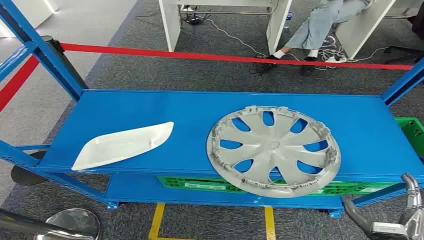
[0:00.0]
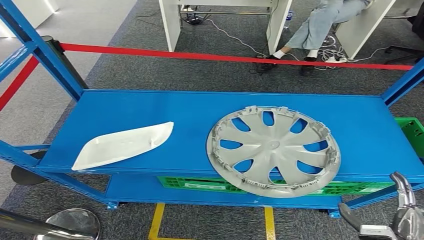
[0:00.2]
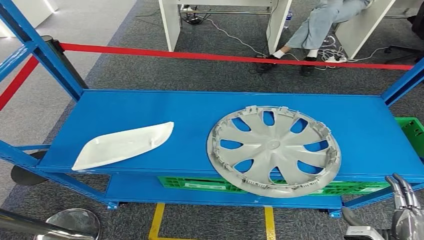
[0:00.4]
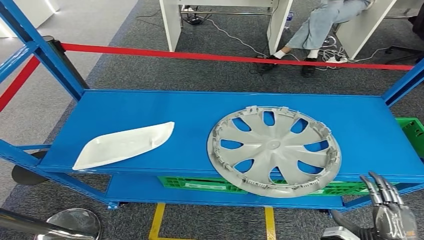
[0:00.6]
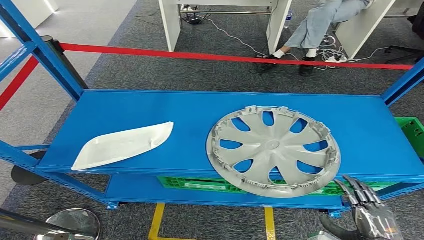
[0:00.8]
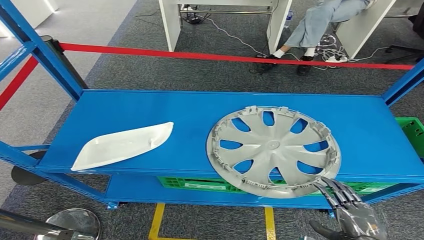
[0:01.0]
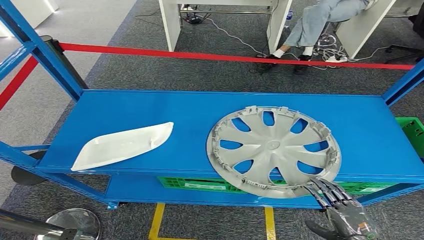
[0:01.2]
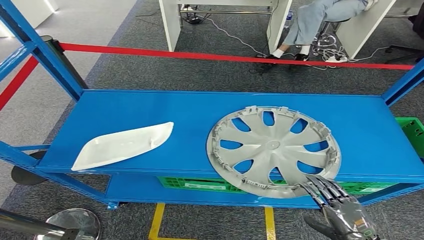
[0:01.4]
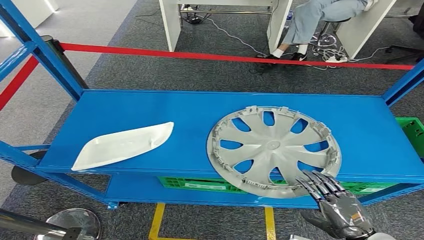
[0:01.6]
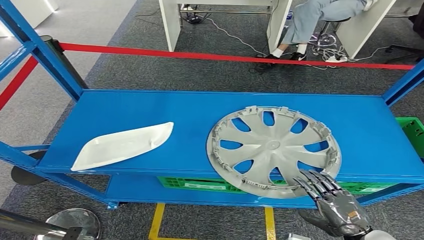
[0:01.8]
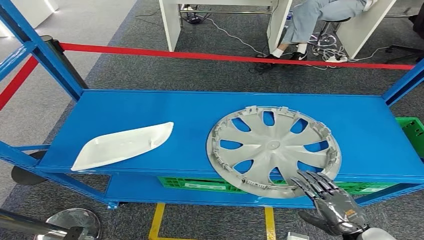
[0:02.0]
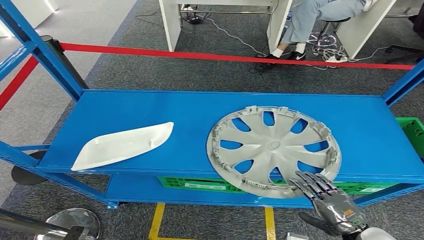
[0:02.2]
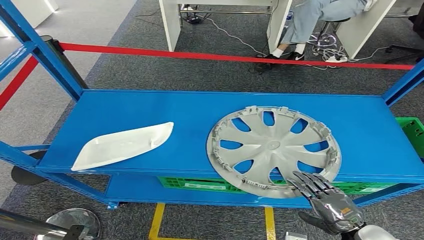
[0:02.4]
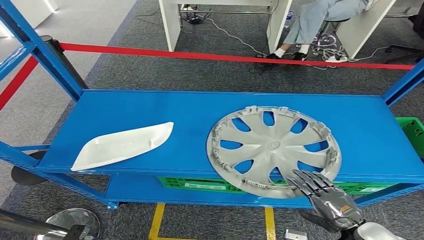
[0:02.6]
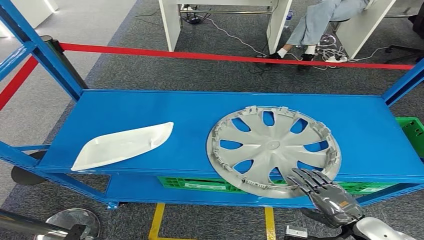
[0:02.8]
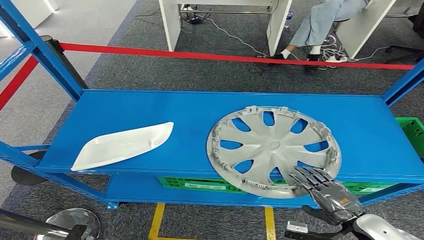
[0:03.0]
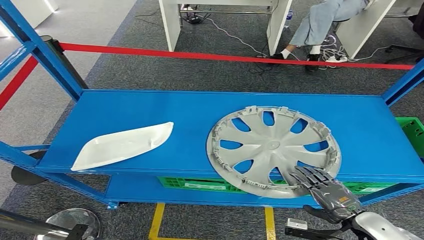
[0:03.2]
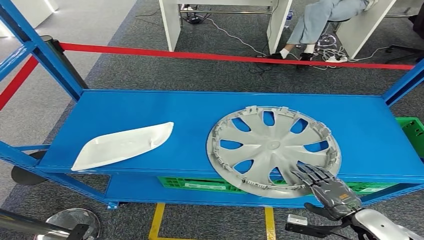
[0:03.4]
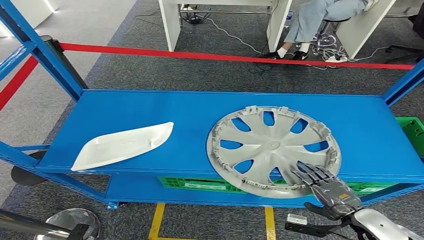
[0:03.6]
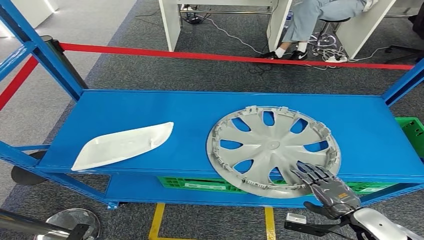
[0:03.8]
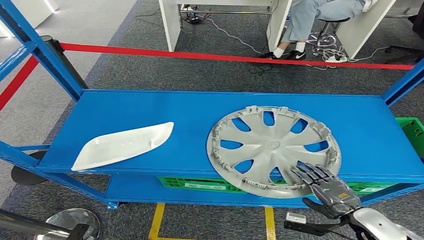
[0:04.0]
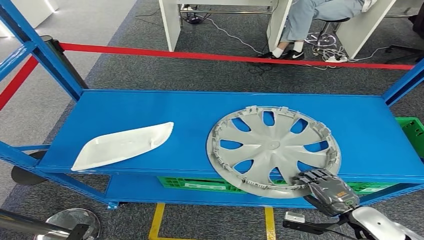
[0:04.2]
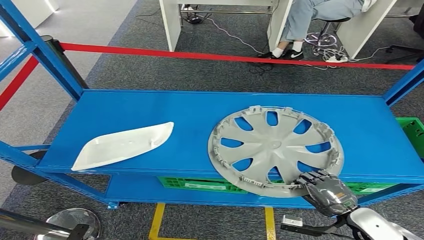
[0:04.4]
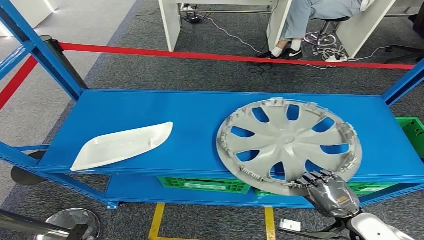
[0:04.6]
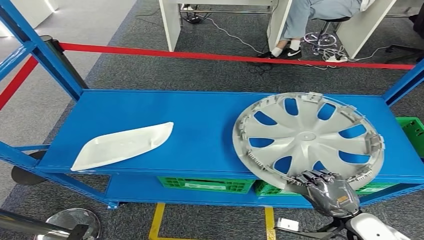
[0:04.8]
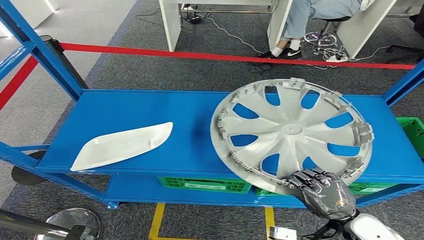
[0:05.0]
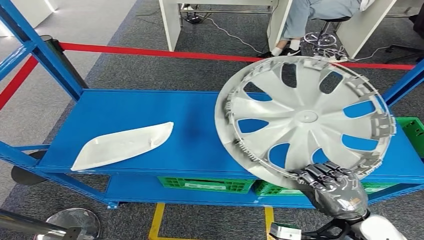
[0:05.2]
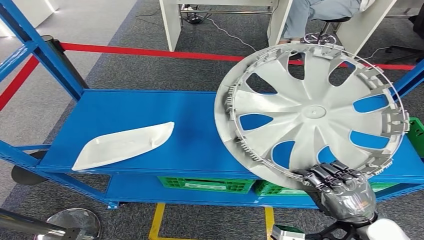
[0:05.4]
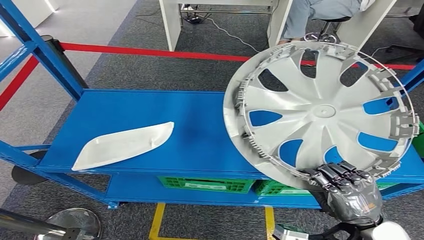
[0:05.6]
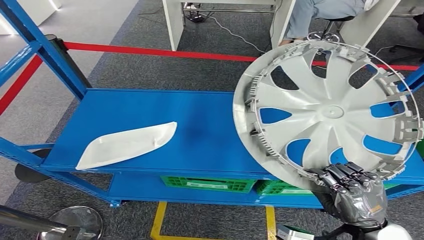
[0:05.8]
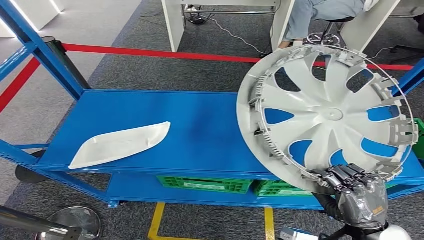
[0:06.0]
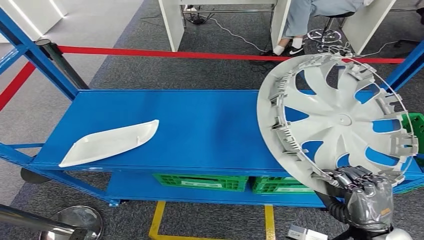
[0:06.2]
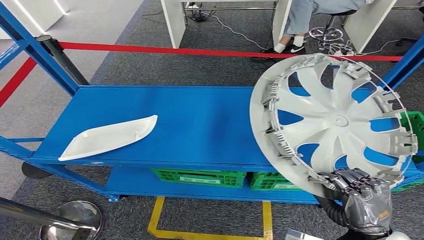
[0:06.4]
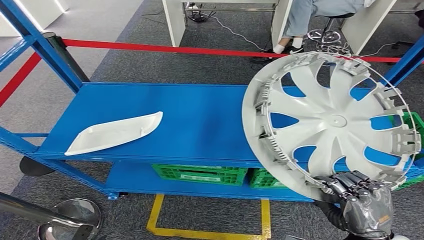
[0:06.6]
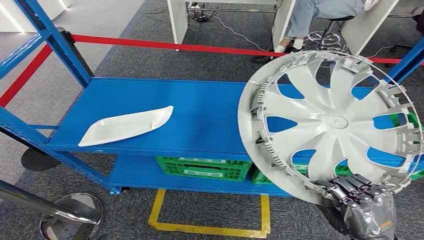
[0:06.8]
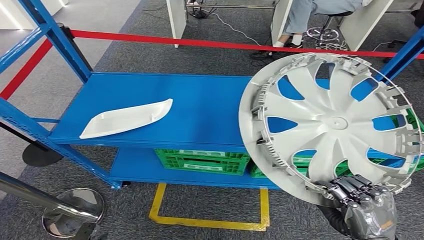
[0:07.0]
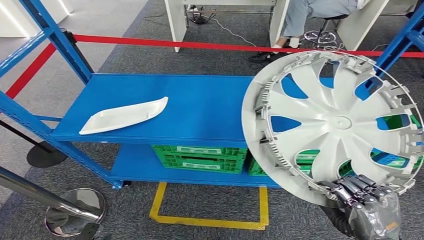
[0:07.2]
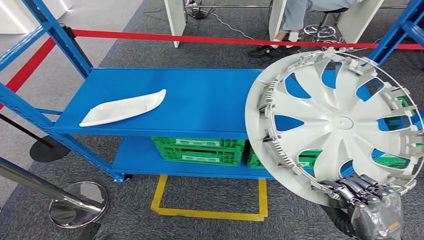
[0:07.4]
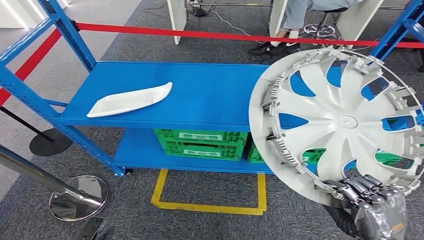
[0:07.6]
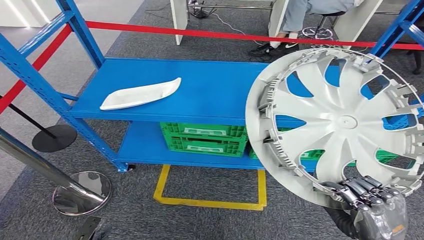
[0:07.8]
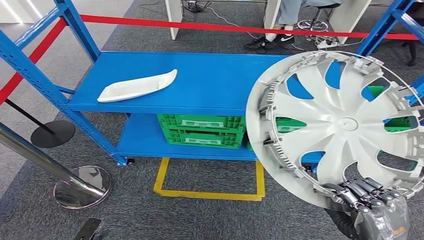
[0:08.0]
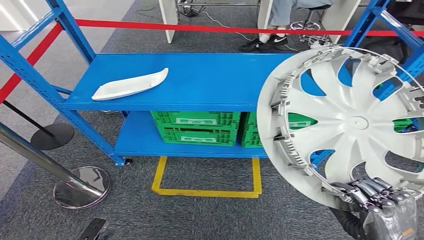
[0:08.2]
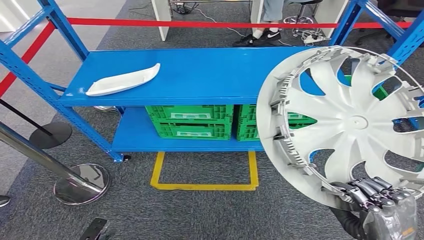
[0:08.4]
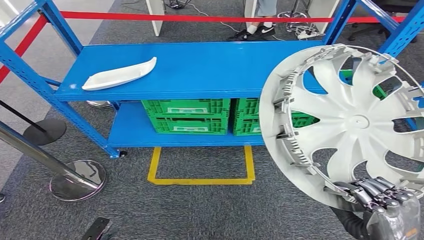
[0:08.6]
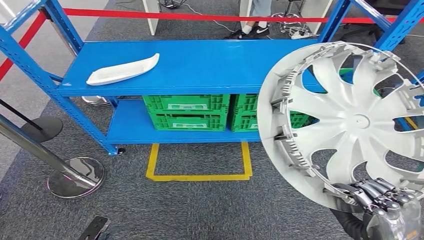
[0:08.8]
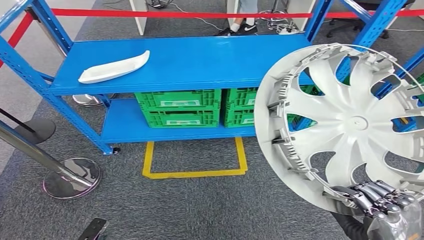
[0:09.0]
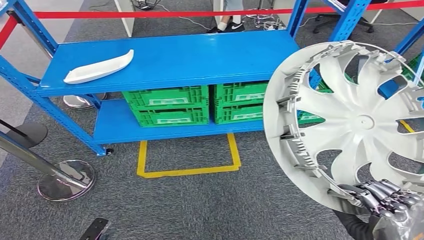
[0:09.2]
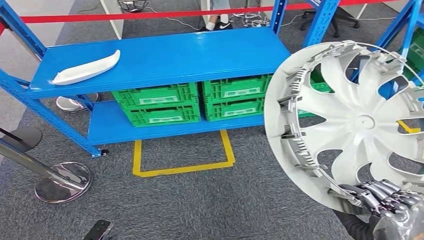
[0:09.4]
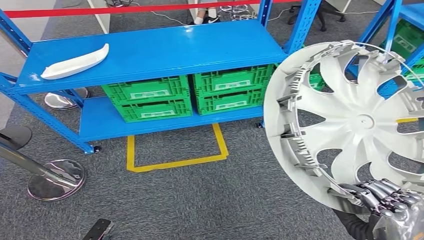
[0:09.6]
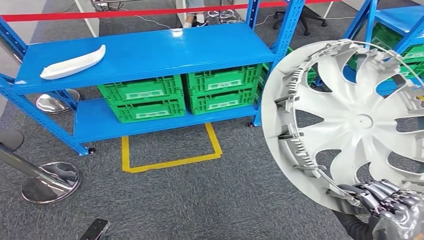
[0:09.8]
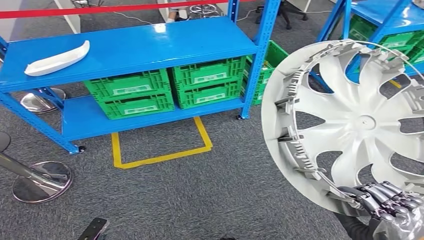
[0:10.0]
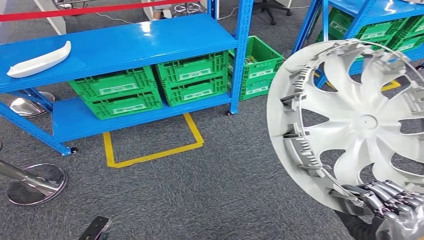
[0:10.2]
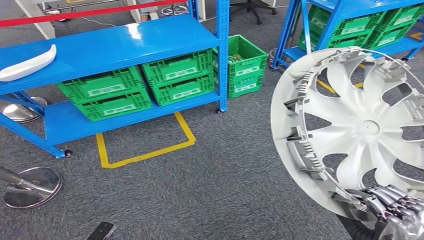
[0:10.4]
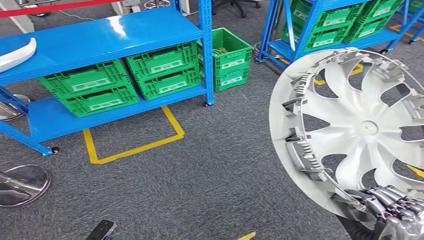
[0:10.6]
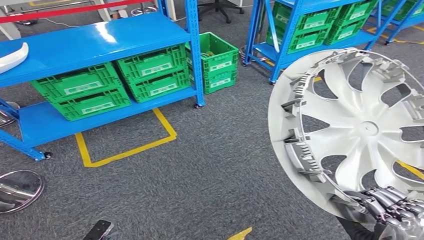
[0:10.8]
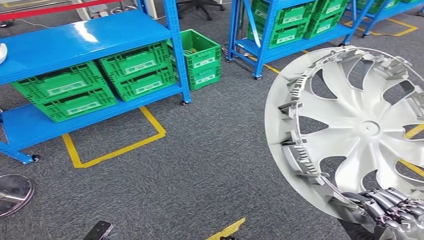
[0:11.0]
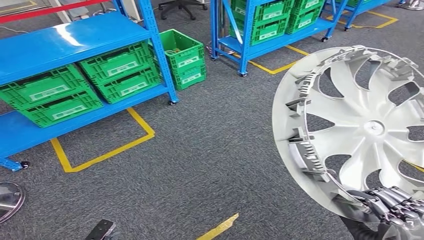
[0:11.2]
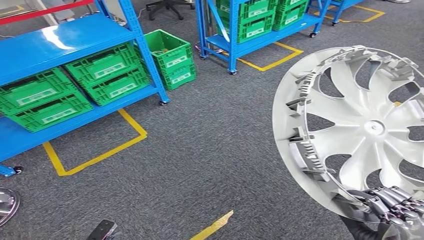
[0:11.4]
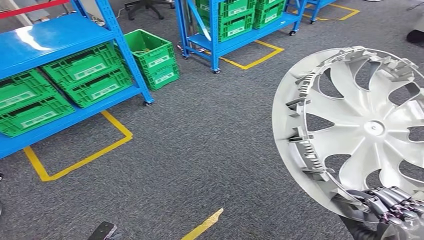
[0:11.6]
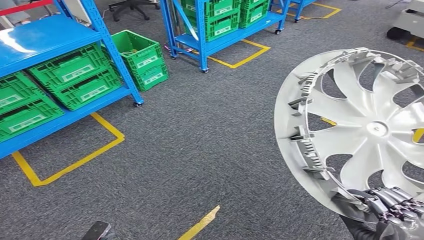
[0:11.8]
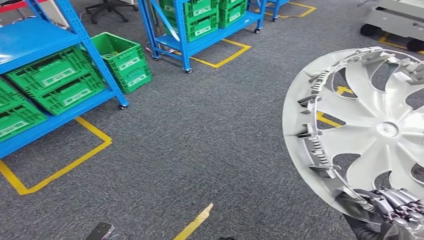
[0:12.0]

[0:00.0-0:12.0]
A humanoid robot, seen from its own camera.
Step, 0.0 to 7.4 s: Pick up the small component from the shelf.
1.6 to 3.0 s: The hands make only small movements.
3.0 to 4.4 s: The hands make only small movements.

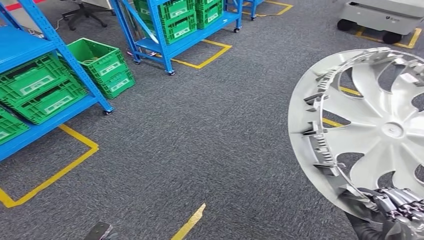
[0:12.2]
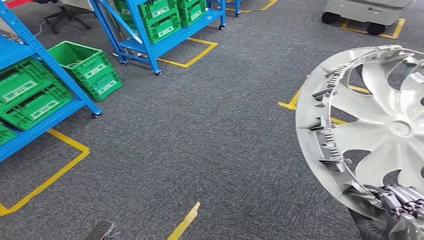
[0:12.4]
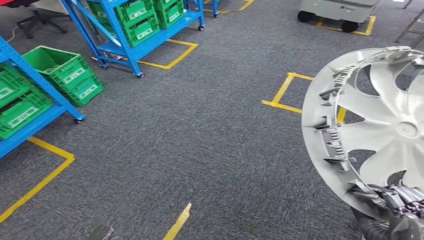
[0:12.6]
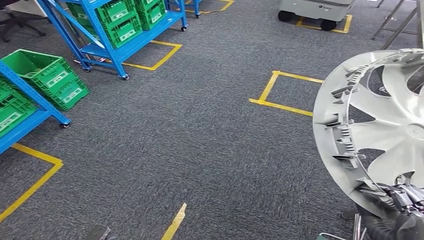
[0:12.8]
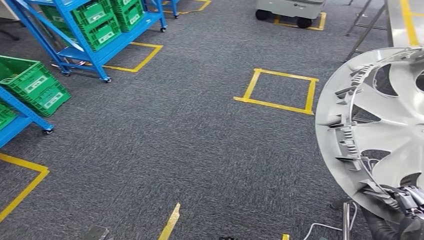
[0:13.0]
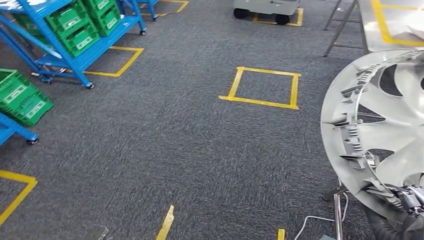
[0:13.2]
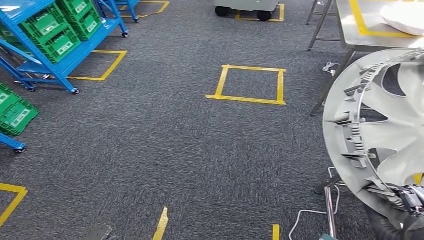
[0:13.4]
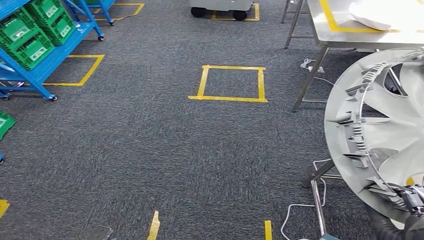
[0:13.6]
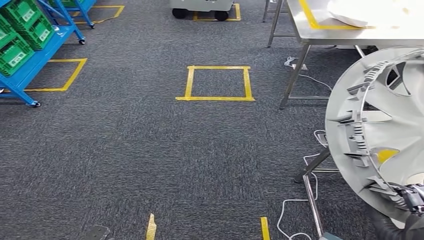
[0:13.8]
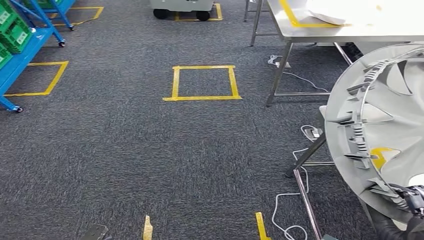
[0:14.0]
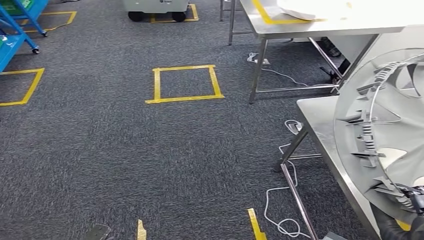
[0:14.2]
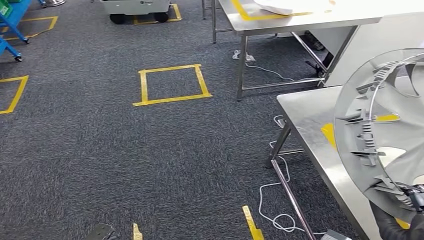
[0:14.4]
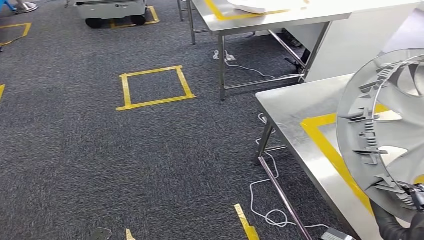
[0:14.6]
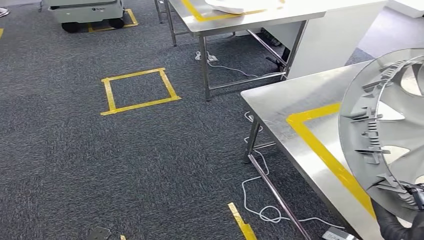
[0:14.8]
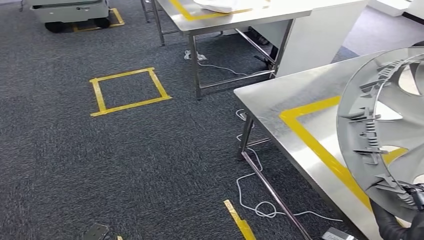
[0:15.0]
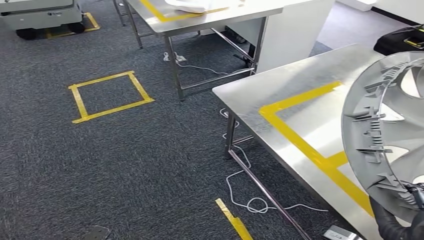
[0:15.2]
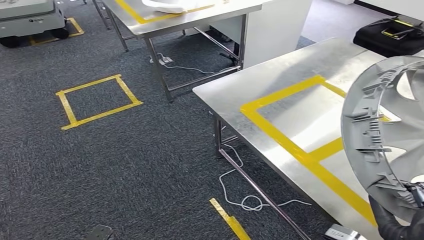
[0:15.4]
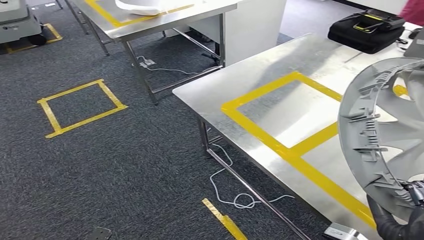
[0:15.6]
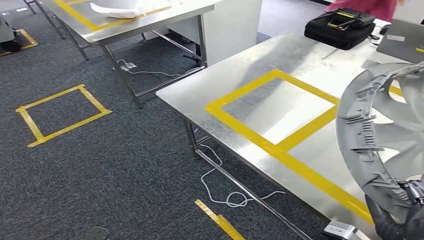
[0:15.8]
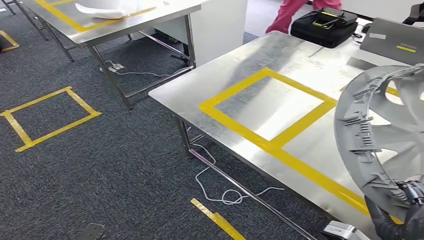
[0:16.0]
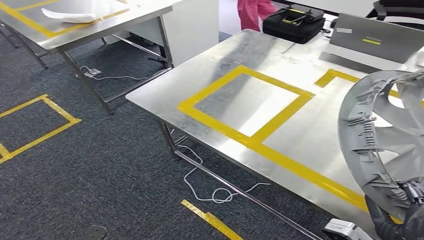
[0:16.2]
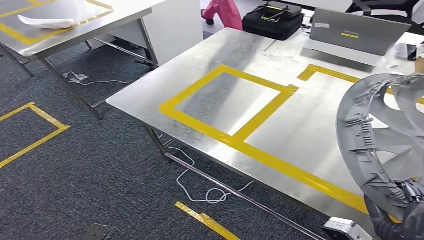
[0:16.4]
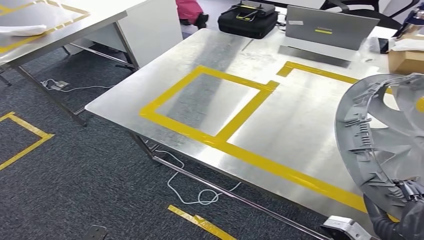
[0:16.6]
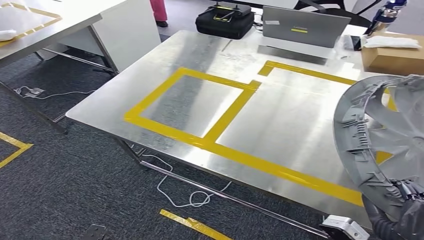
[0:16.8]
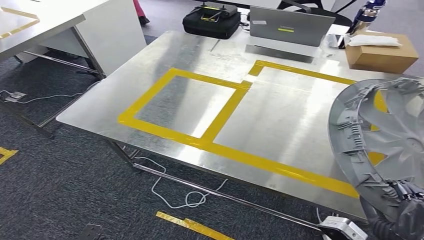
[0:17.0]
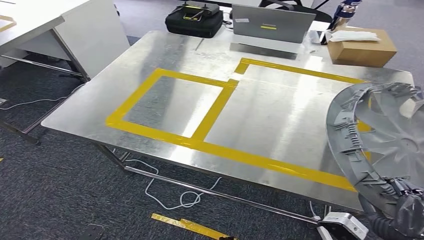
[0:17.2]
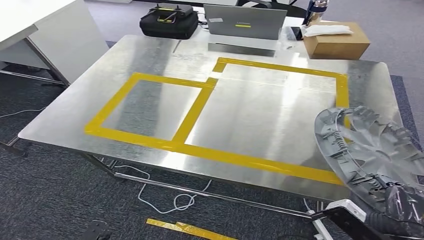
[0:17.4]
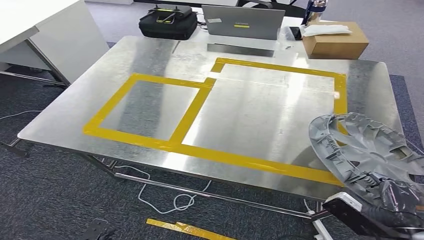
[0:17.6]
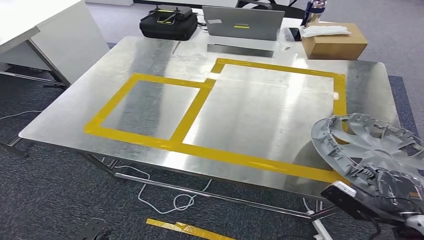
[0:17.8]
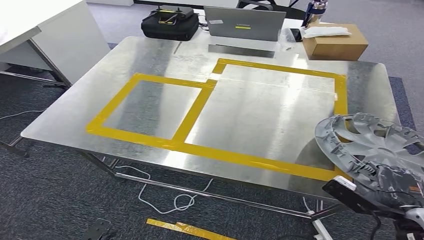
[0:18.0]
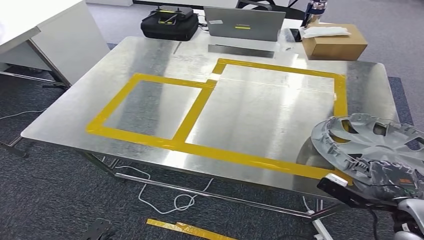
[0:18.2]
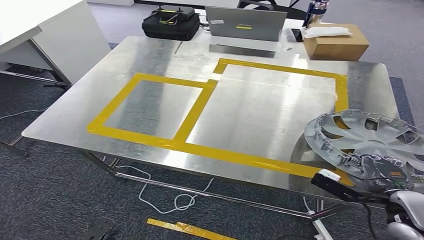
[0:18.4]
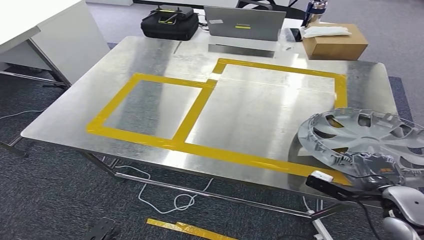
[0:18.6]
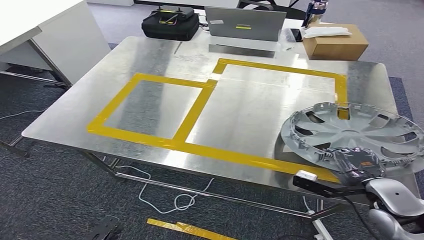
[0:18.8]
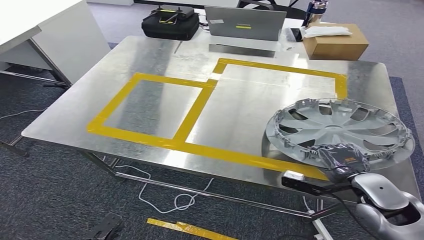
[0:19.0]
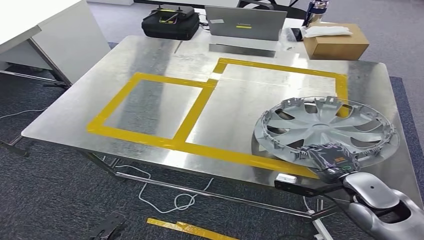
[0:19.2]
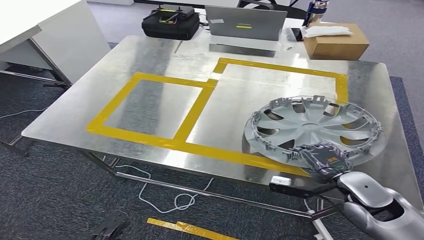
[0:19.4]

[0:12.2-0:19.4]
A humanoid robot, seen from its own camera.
18.0 to 19.4 s: The right hand moves forward, roughly 10 cm.
